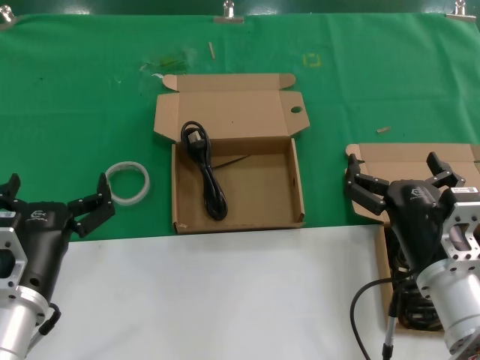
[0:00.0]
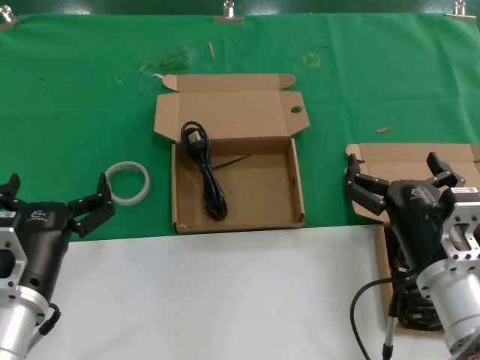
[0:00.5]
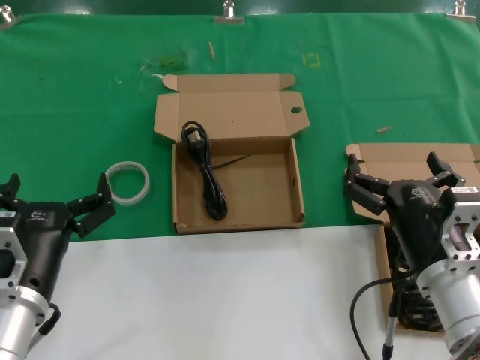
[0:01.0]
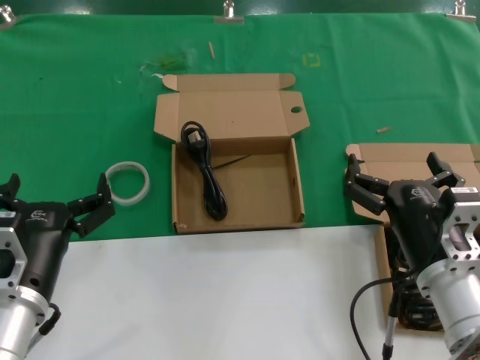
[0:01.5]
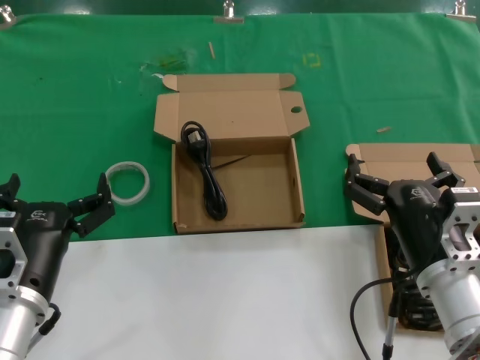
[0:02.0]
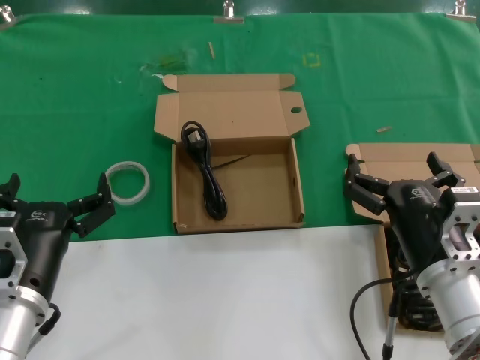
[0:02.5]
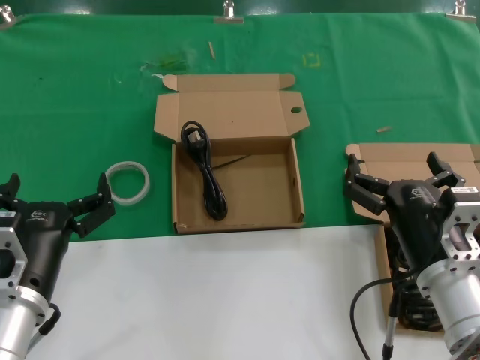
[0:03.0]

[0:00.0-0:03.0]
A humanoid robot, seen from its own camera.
Task of the whole recording: take the parts from the box containing them and put them into an empty box.
0:00.0 to 0:03.0: Both hands stay about where they are.

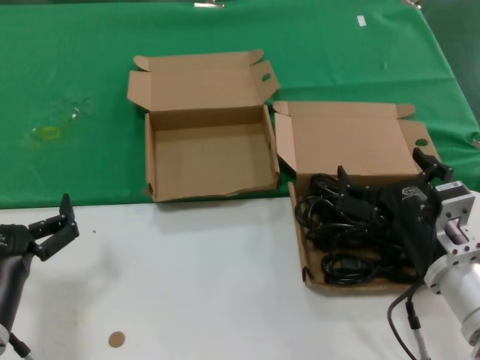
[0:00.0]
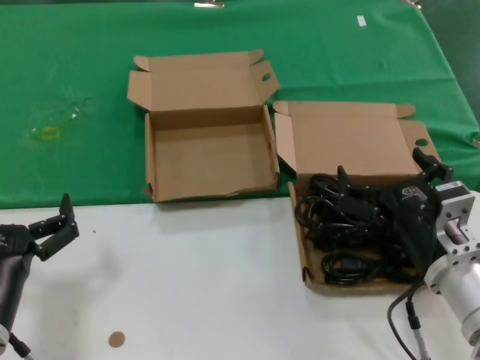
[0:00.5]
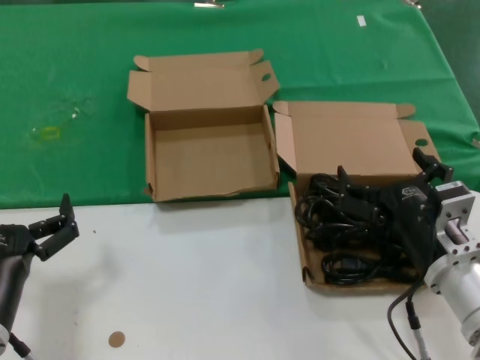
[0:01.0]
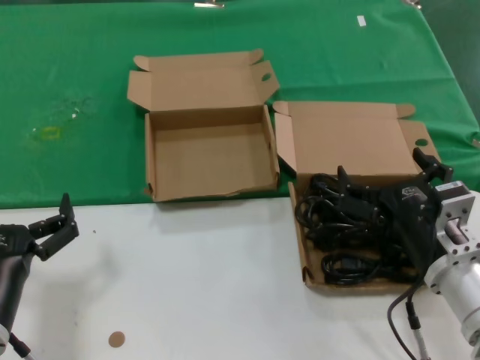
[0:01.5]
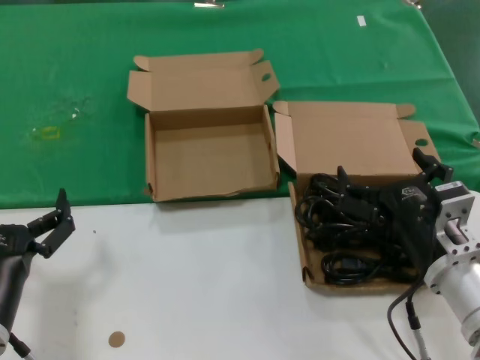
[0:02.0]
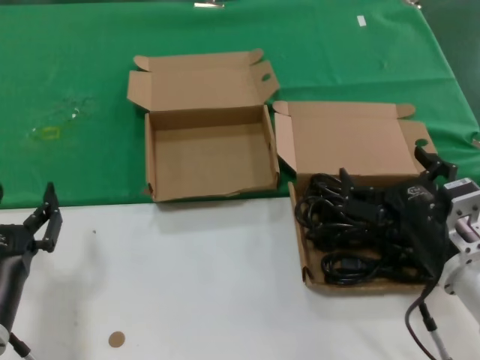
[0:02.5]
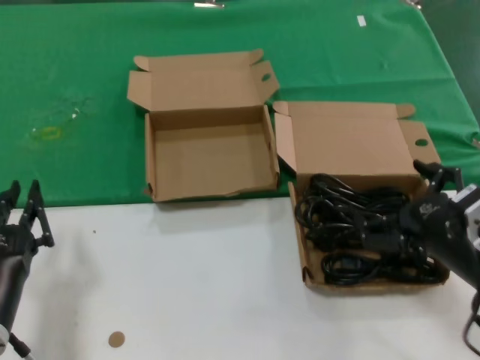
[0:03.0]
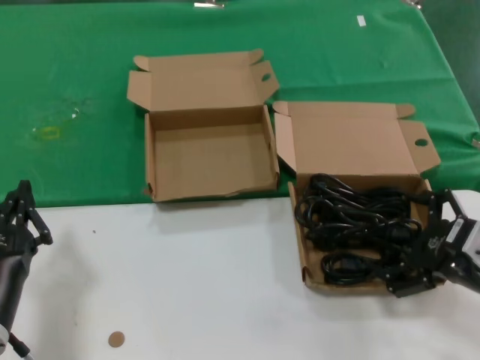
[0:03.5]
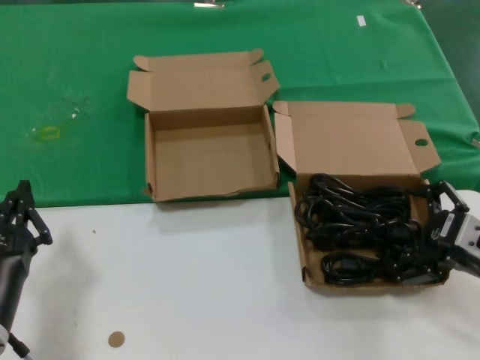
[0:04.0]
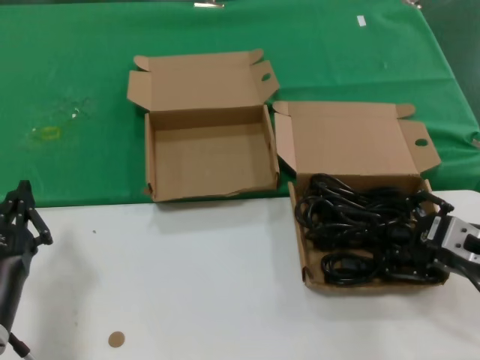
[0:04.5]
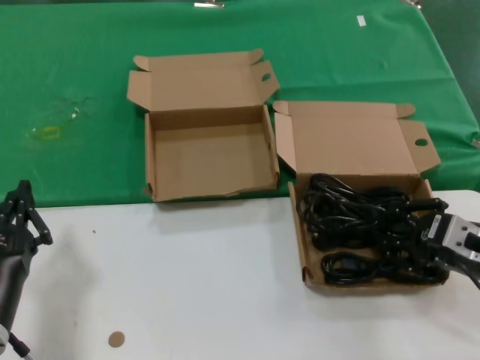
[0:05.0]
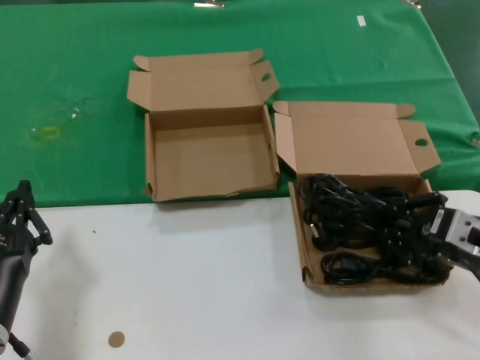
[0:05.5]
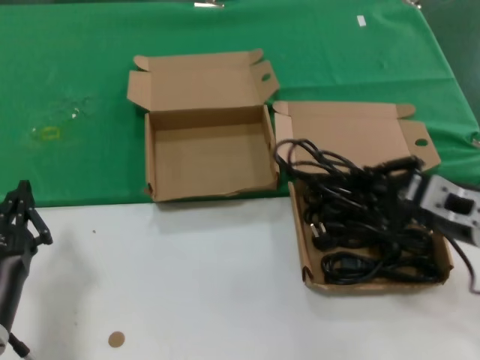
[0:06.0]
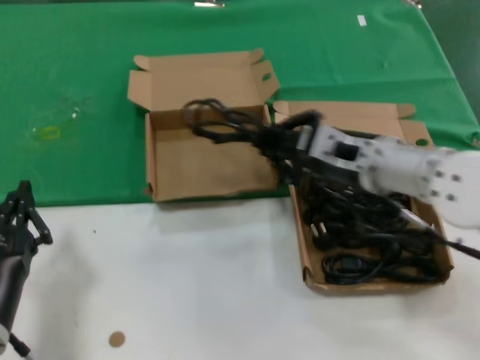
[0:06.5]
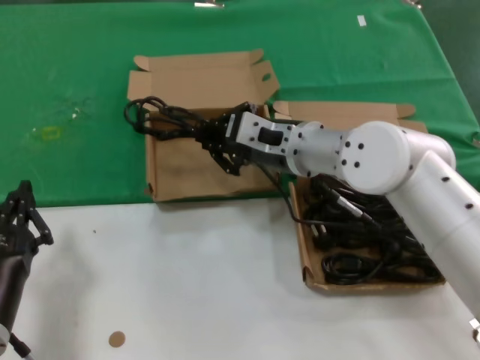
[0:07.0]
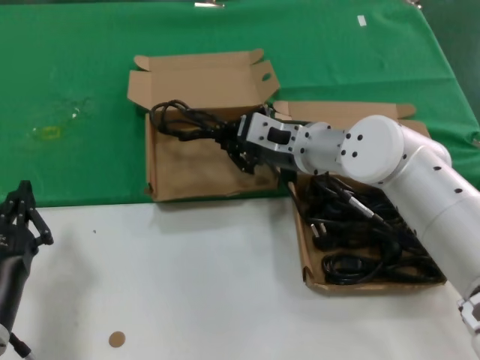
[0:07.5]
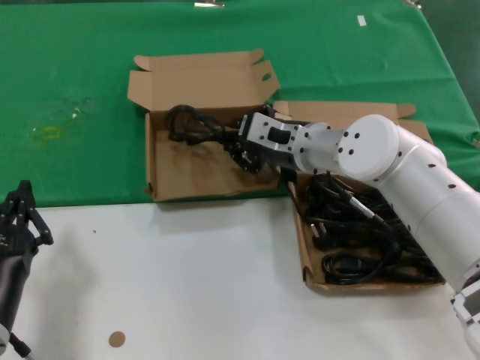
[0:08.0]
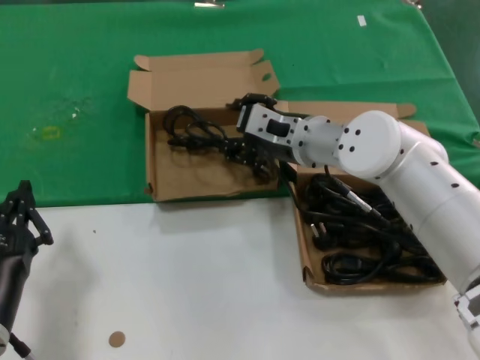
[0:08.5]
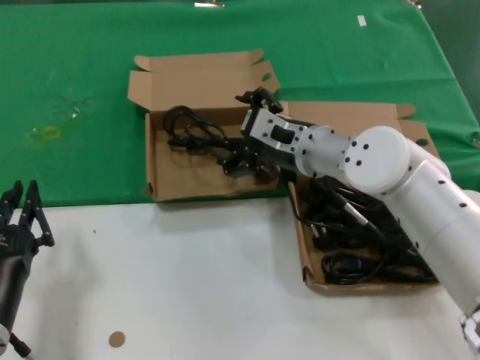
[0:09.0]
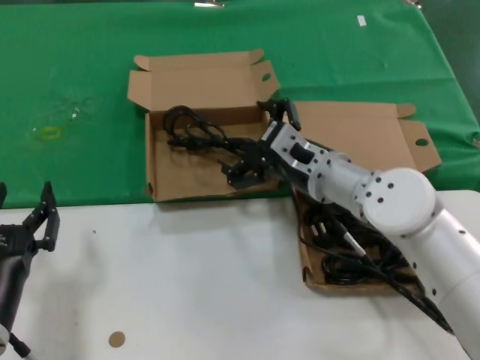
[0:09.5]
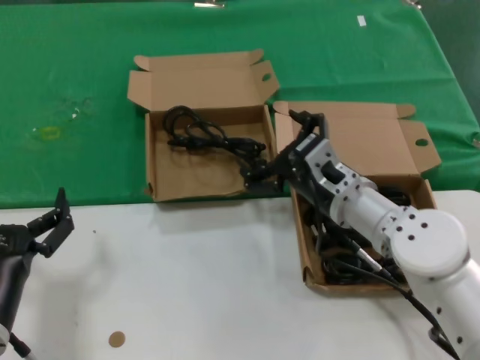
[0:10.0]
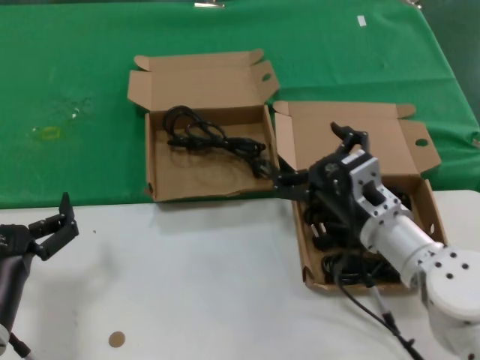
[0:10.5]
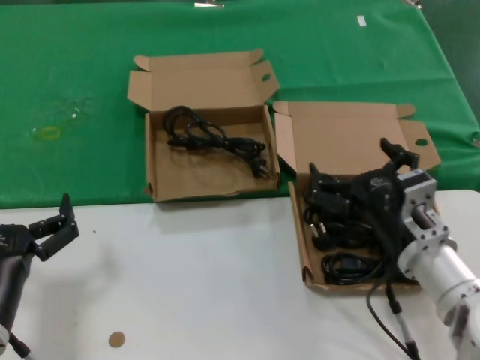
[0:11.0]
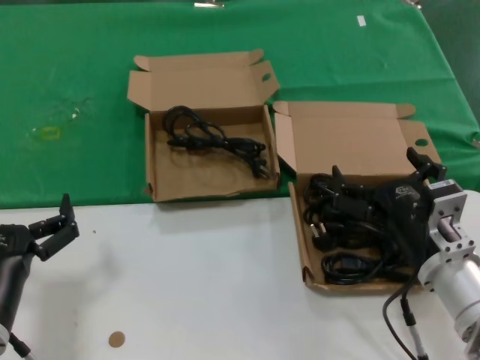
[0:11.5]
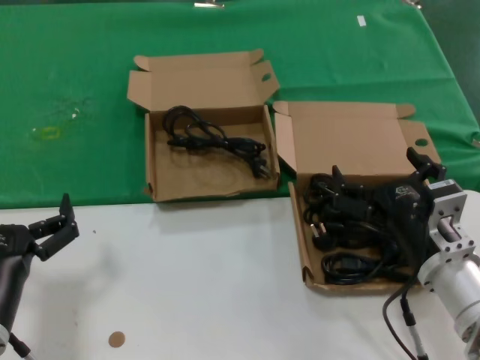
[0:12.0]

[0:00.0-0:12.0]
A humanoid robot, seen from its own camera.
Task of the whole recording: take the parts from the box containing them and put them into an empty box.
Step, 0:00.0 to 0:05.0: Grasp the data cable.
Step, 0:05.5 to 0:08.5: Place the data cable in the another box.
0:00.0 to 0:02.0: Neither hand changes place.
0:02.0 to 0:04.0: The right hand moves to the right, approximately 10 cm.
0:04.0 to 0:06.0: The right hand changes place by some 5 cm.
0:06.0 to 0:08.0: The right hand heads forward and to the left, covering approximately 25 cm.
0:08.0 to 0:10.0: The right hand is displaced backward and downward by about 10 cm.
0:10.0 to 0:12.0: The right hand shifts approximately 15 cm backward and to the right.

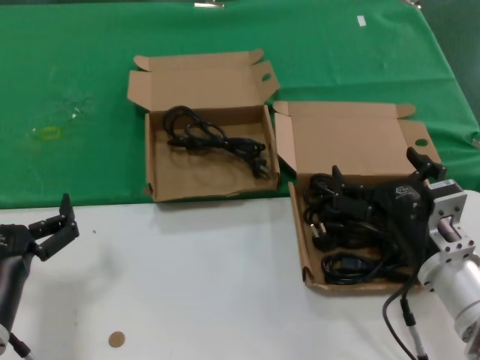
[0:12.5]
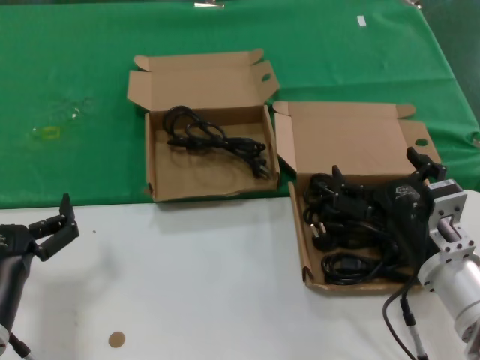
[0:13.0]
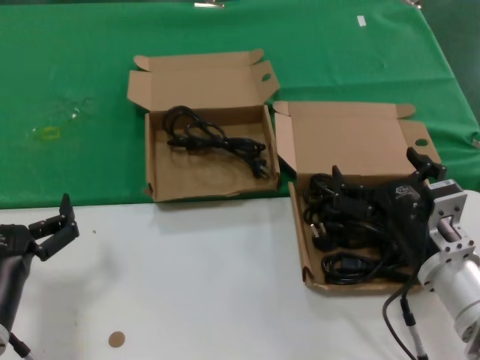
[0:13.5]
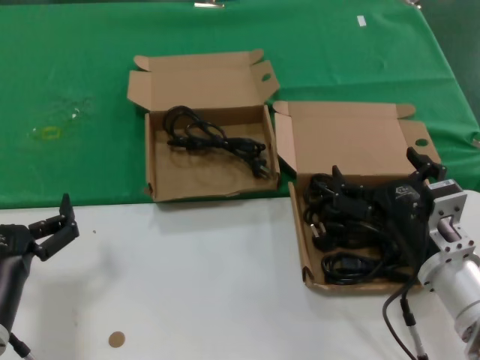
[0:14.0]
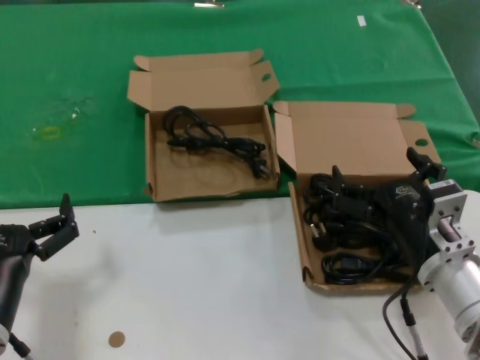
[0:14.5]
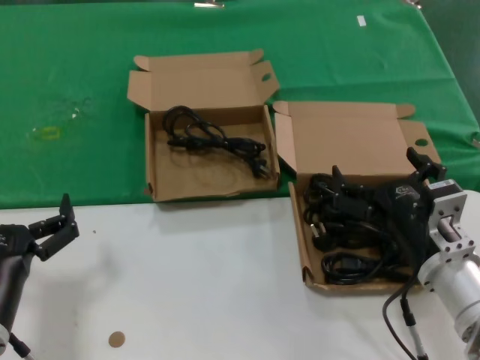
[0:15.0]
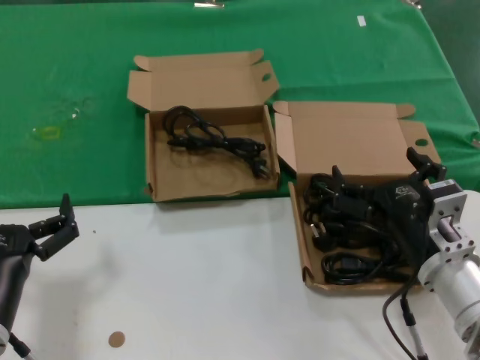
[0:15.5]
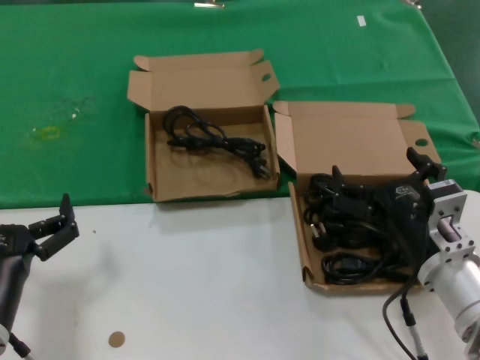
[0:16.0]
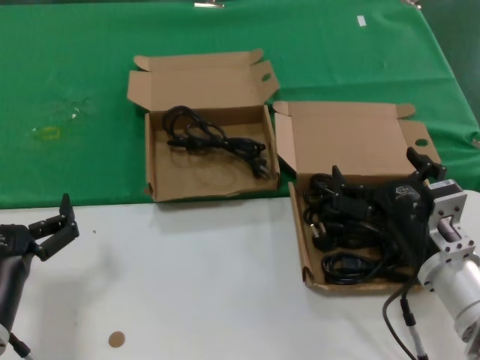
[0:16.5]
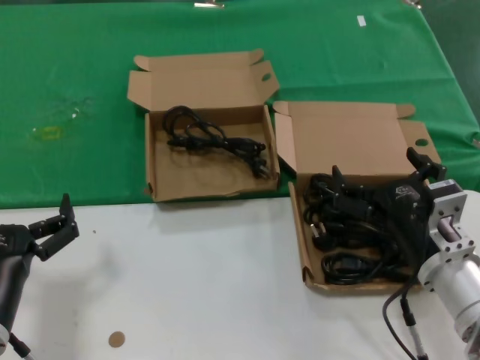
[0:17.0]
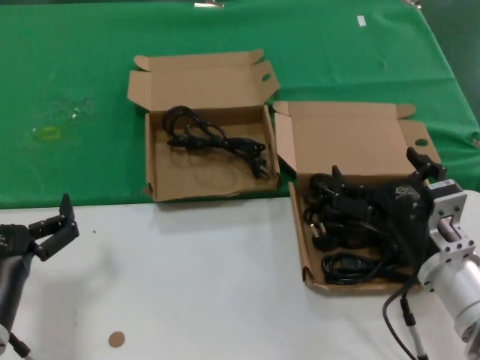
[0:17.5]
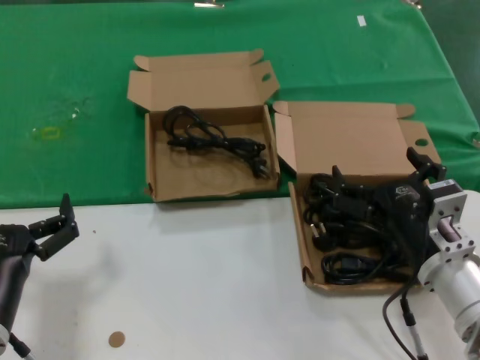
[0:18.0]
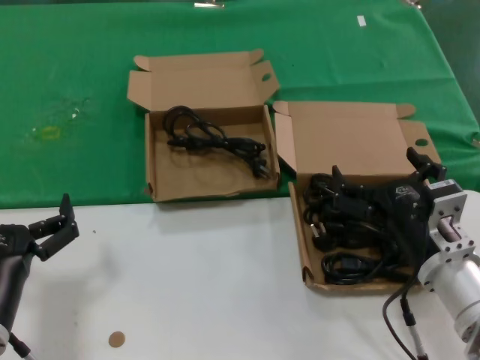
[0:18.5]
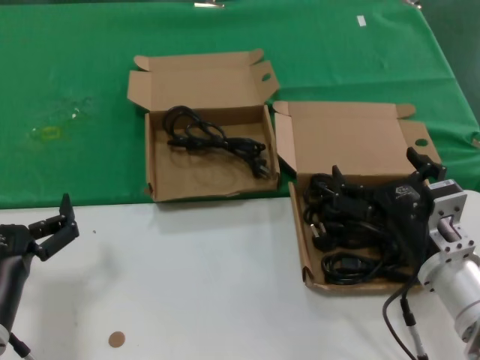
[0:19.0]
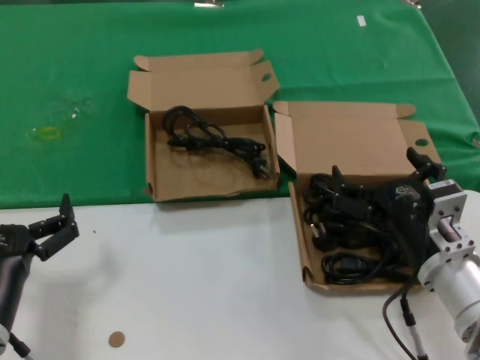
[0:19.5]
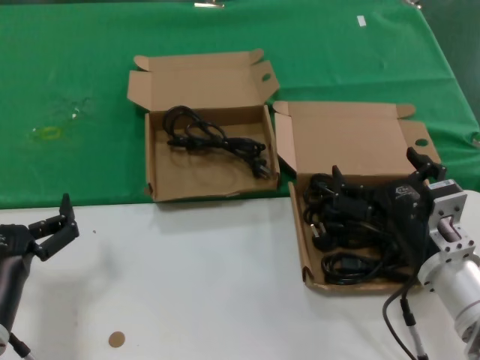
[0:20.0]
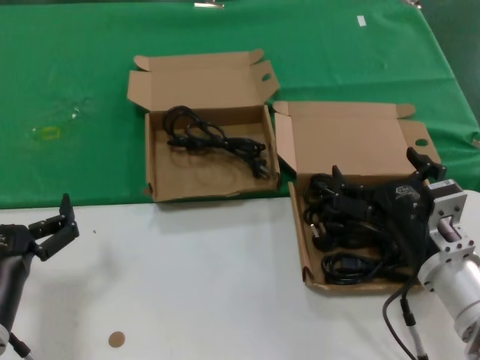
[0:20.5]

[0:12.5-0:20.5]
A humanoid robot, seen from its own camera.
Task of the whole recording: take the parts from the box containing them and put them into an empty box.
0:12.5 to 0:20.5: The two hands keep their place.

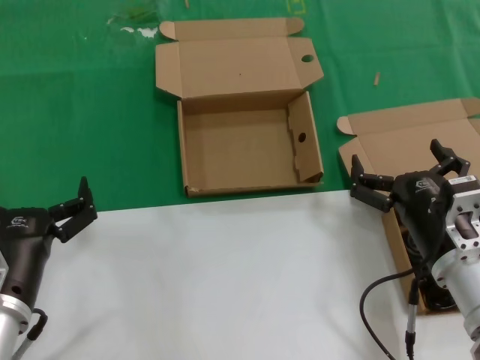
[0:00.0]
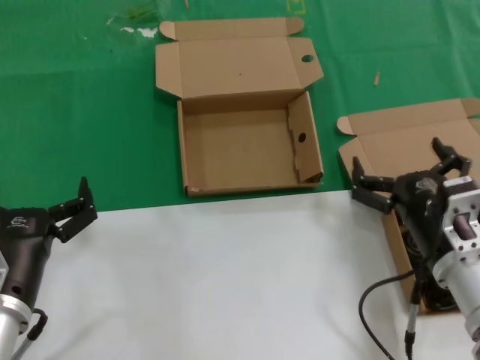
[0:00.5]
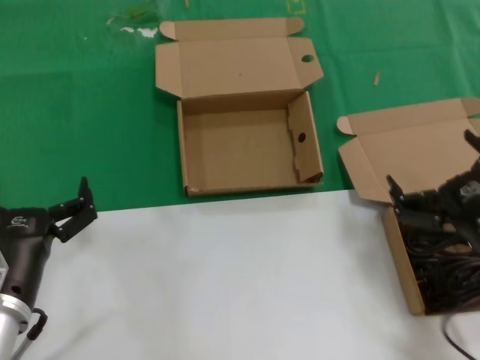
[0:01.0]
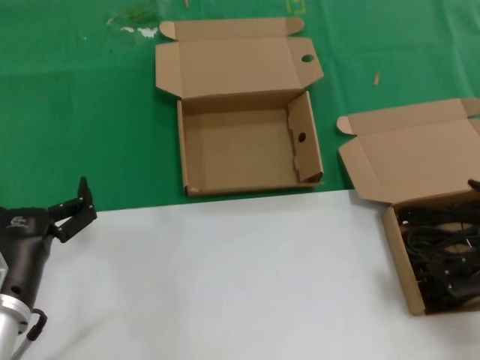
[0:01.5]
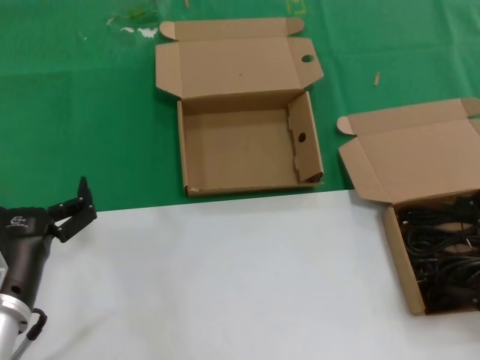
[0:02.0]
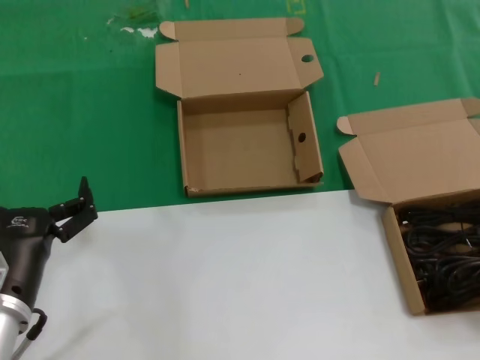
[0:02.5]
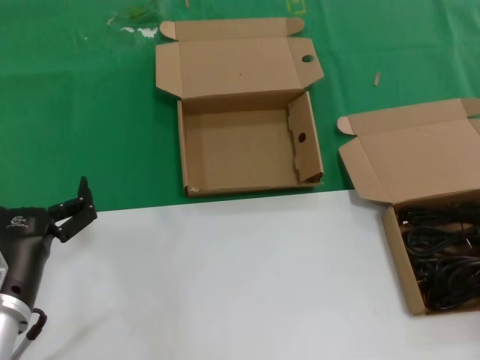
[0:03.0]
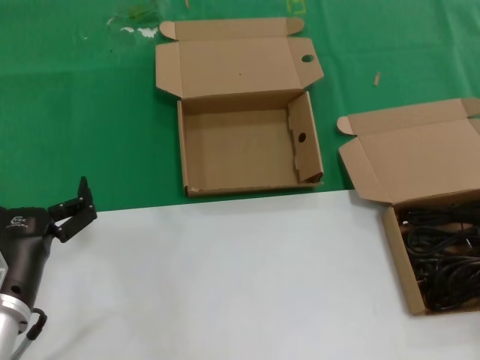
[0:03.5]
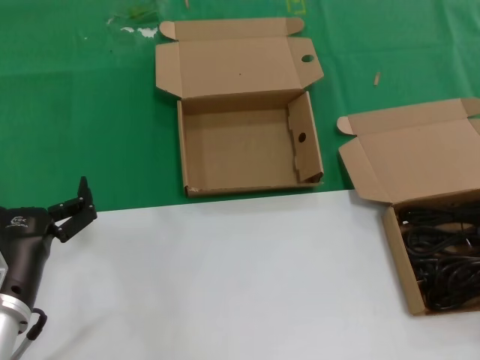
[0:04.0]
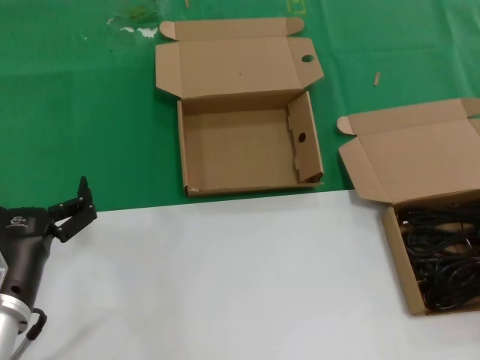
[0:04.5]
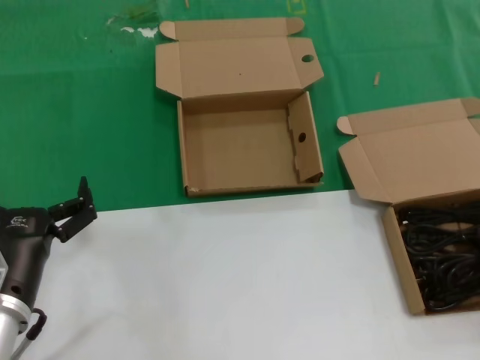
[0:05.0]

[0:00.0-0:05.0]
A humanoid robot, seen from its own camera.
Task of the whole recording: take the parts from the box containing them and put them into an empty box.
0:00.0 to 0:02.5: The right hand heads to the right and upward, covering some 25 cm.
